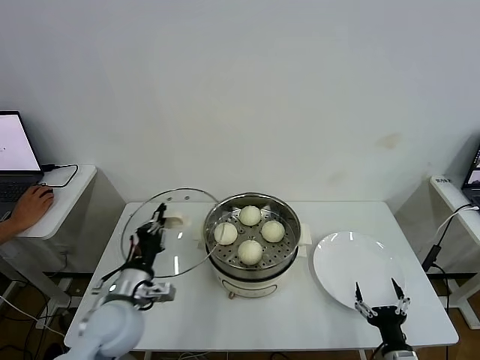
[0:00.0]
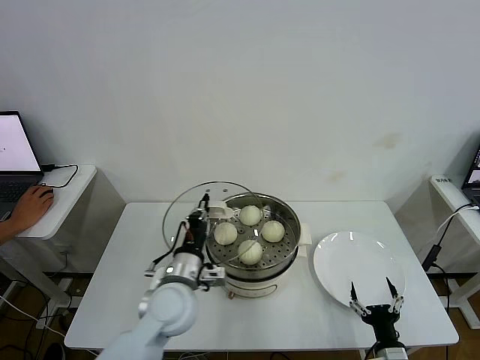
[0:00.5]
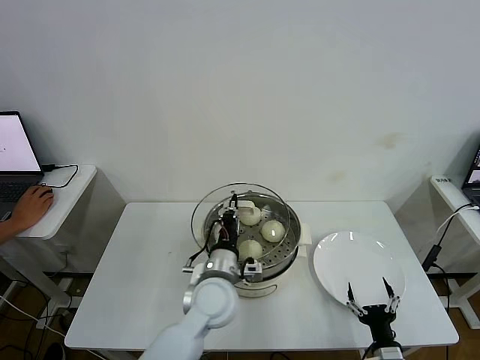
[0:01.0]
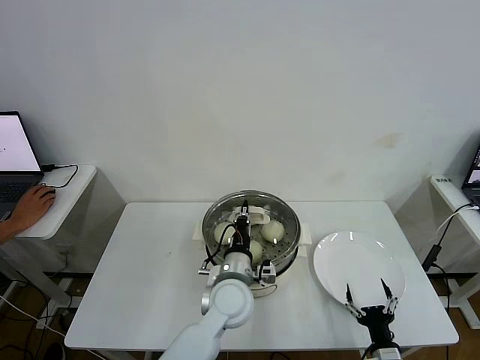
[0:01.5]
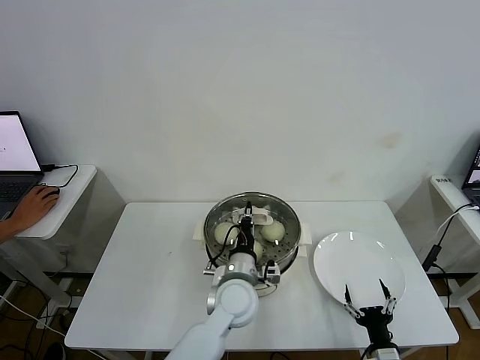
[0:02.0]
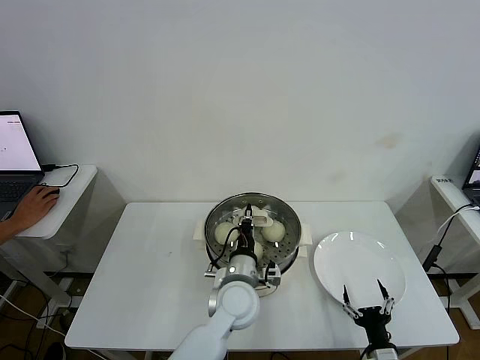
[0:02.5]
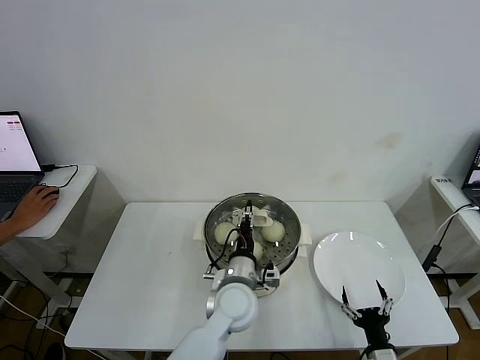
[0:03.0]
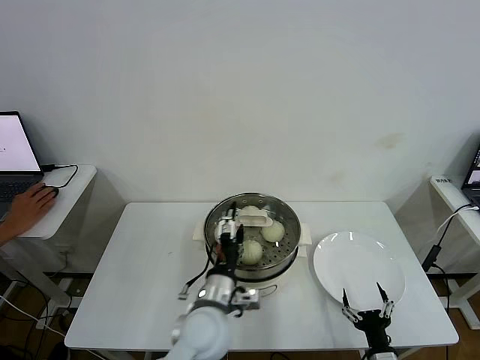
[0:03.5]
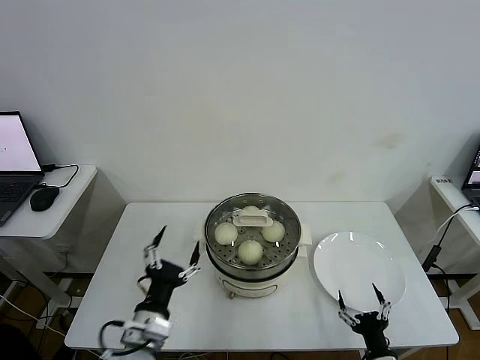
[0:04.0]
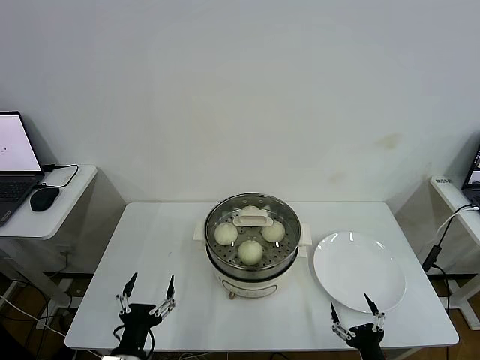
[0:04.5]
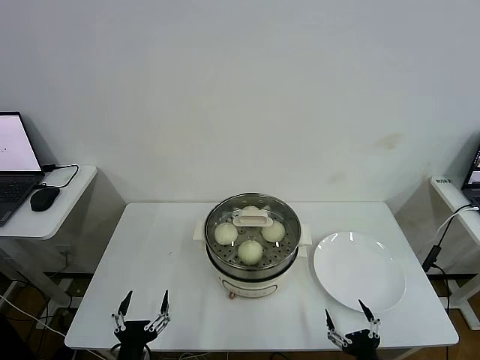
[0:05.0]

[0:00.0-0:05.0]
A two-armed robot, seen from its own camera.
Step, 0.0 to 3.0 s: Place the pot lid on the steamer with left gripper.
0.0 to 2.5 s: The left gripper travels to the right by roughly 25 cm.
2.5 to 5.0 s: The left gripper moves to the left and backward, about 30 cm, and opens its fingers, while the right gripper goes about 5 cm backward.

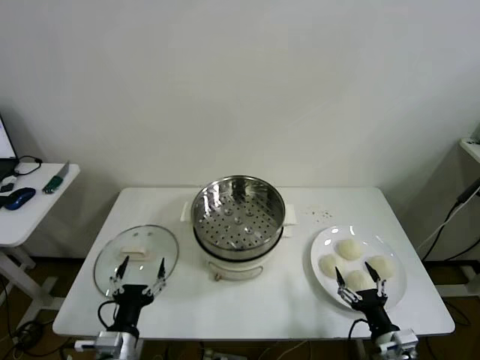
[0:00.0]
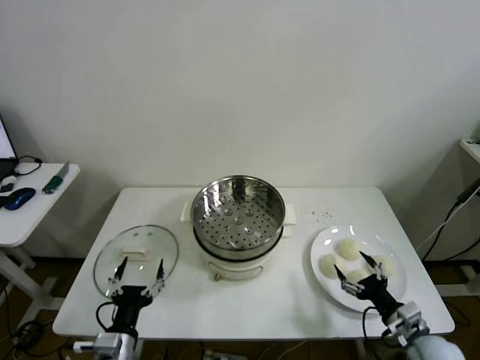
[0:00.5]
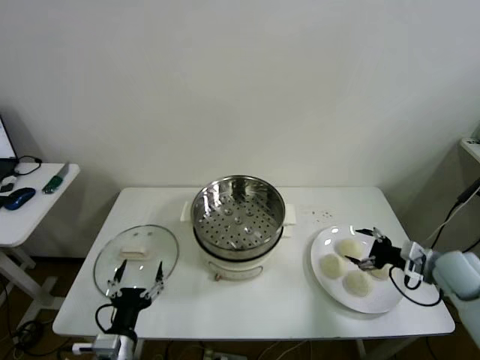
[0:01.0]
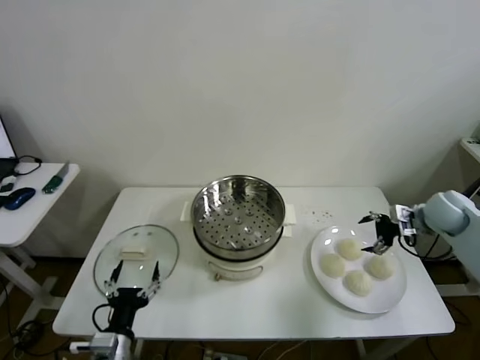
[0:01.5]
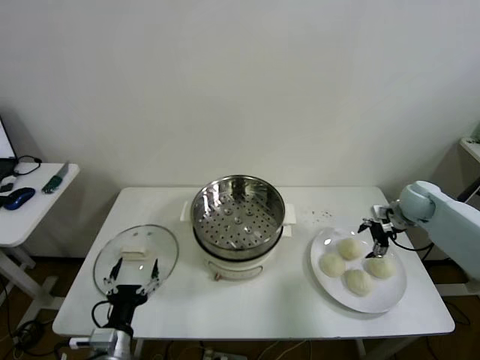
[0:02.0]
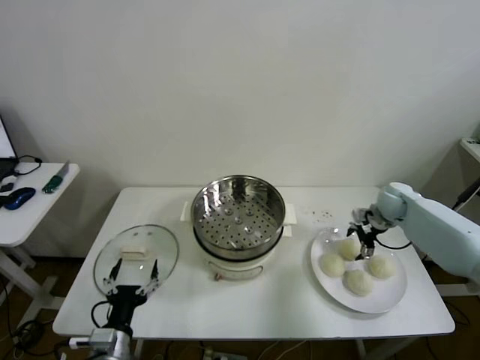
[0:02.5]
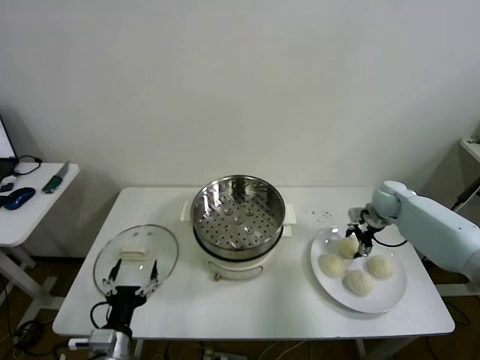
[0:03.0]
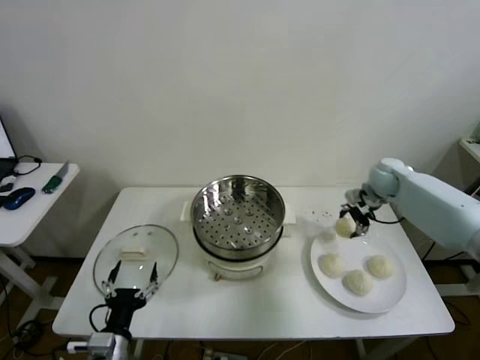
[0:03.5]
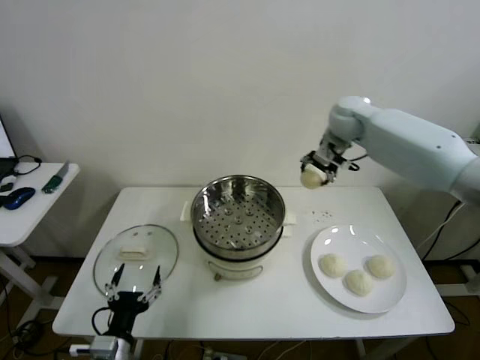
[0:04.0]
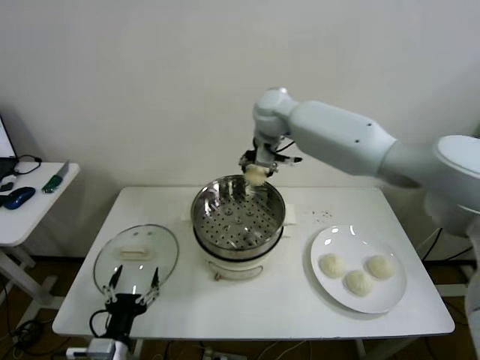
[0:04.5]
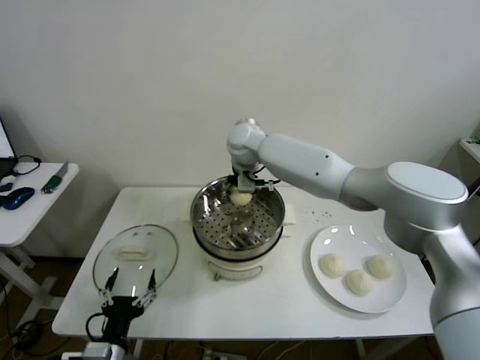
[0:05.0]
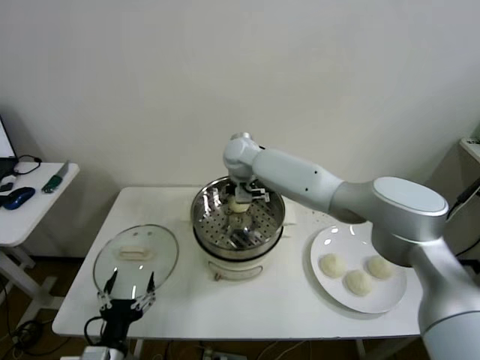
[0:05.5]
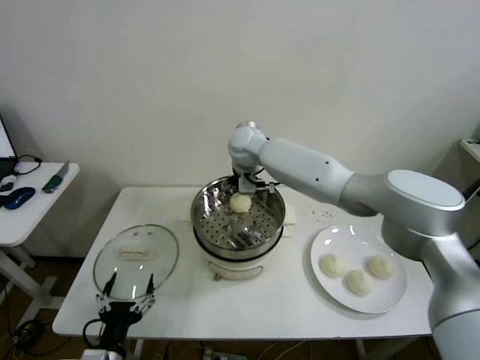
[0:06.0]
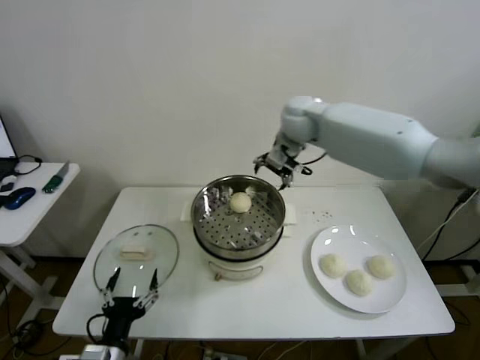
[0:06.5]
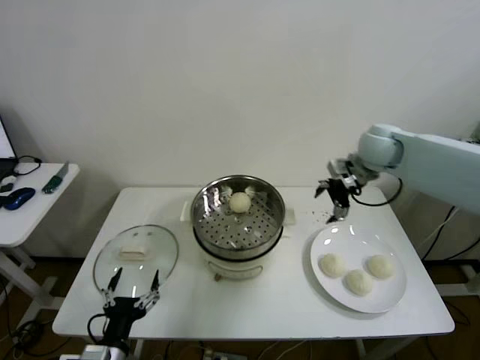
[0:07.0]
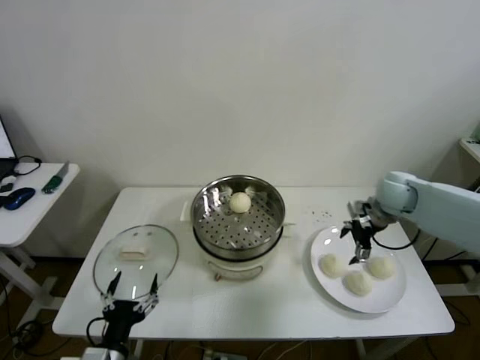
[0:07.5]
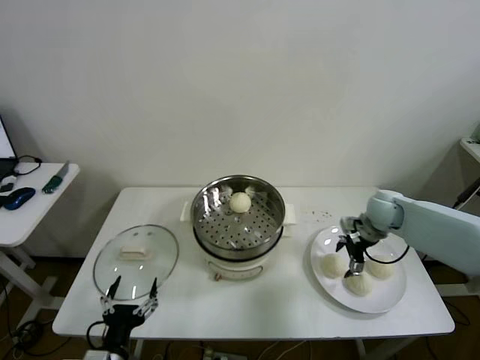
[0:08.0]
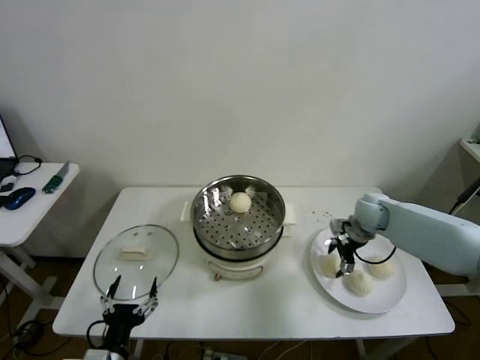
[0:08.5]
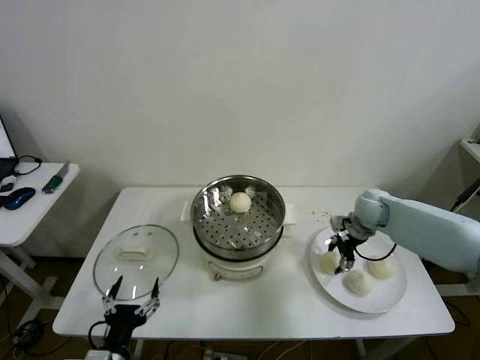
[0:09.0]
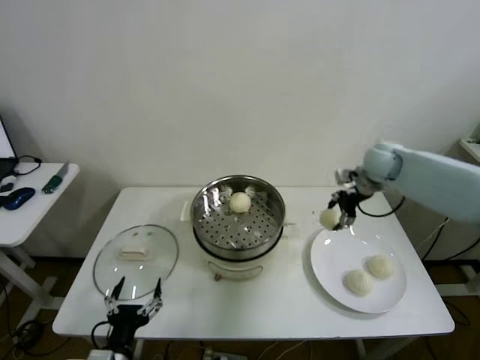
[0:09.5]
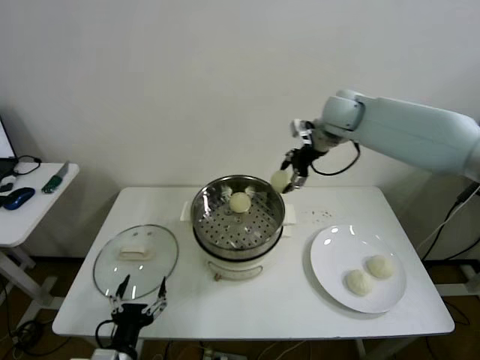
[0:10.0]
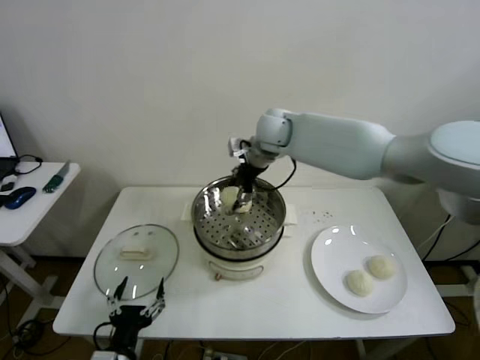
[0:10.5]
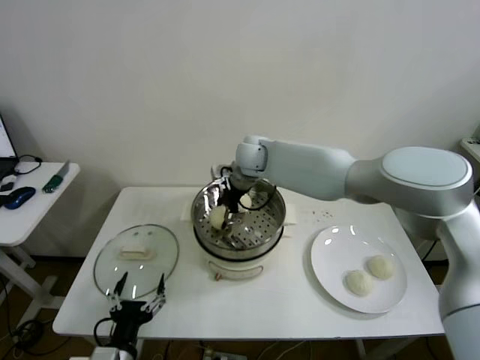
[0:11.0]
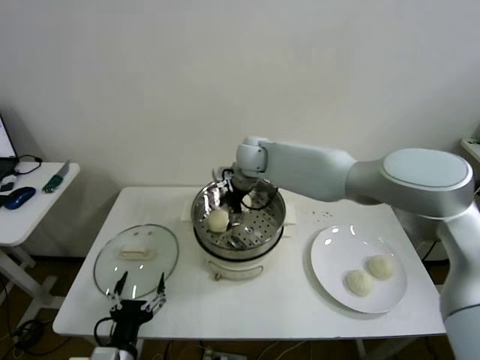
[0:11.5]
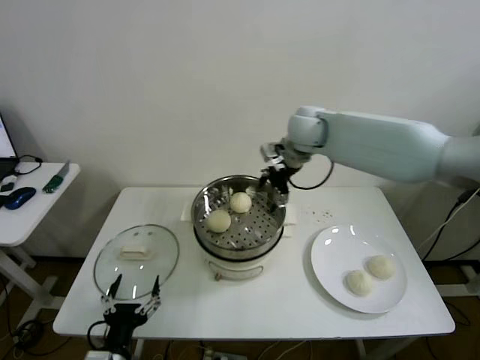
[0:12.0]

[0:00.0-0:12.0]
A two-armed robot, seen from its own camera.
Step, 0.0 to 2.5 s: Grasp the baozi in the plate with right gripper.
Step, 3.0 to 5.0 s: Place the baozi on the steamer with right gripper.
Step, 5.5 to 8.5 s: Grasp the baozi in the plate with right gripper.
Step, 9.0 to 11.0 s: Place the baozi on the steamer with right gripper.
2.0 to 4.0 s: The right gripper goes roughly 30 cm to the left and upward, and closes.
4.0 to 6.0 s: The right gripper travels to the left by some 20 cm, and opens its fingers.
6.0 to 8.0 s: The right gripper is displaced to the right and downward by roughly 35 cm.
8.0 to 10.0 s: The right gripper heads upward and to the left, covering about 30 cm, and closes.
10.0 to 12.0 s: The right gripper reaches roughly 15 cm to the left, then returns, and opens.

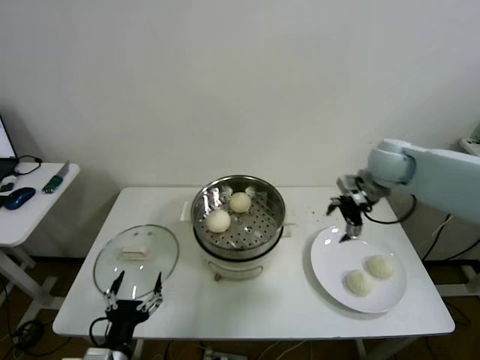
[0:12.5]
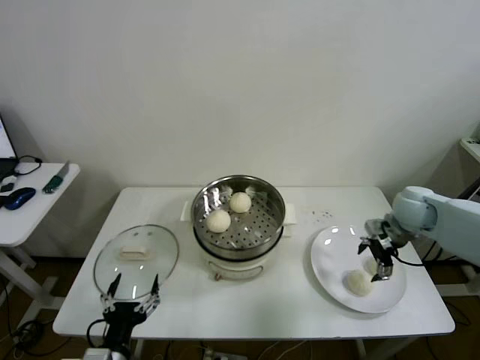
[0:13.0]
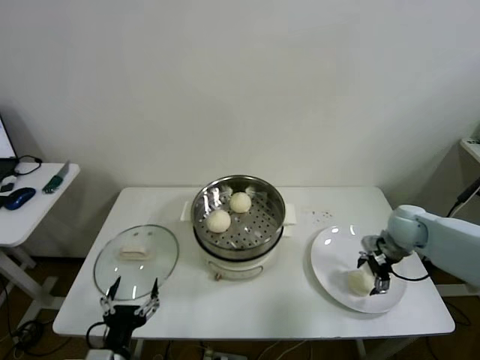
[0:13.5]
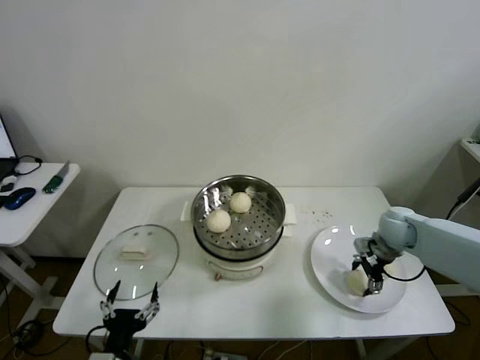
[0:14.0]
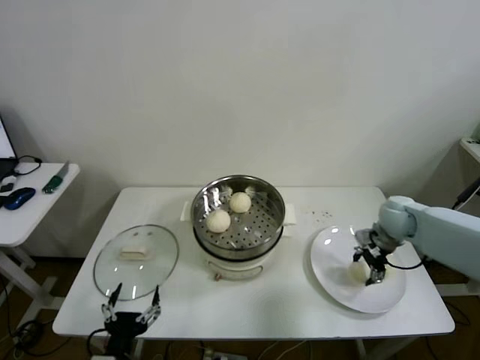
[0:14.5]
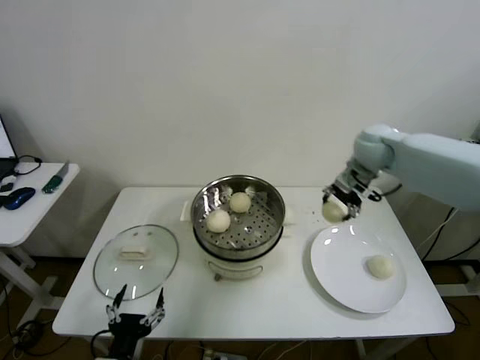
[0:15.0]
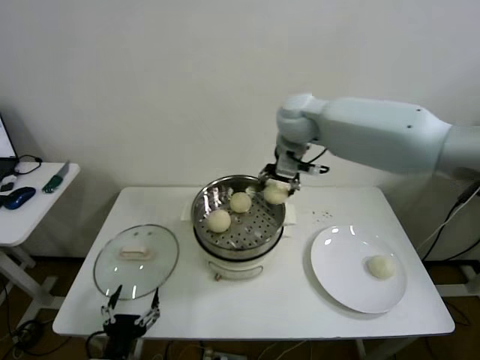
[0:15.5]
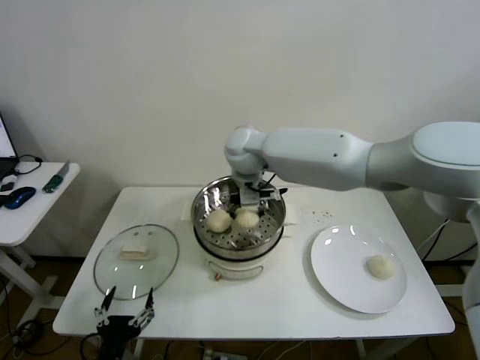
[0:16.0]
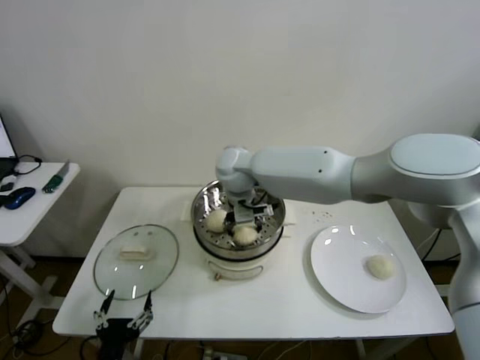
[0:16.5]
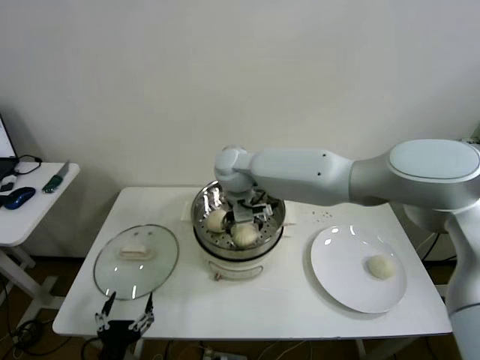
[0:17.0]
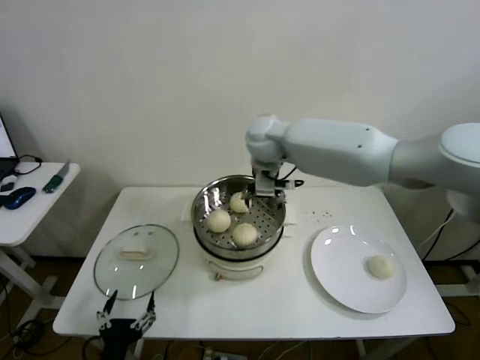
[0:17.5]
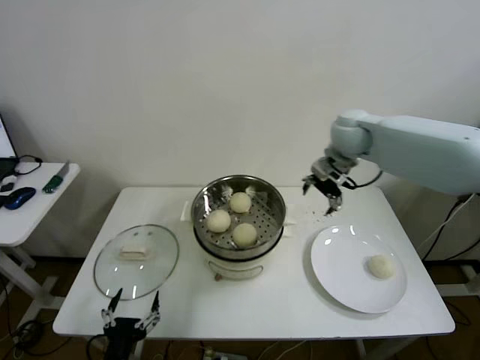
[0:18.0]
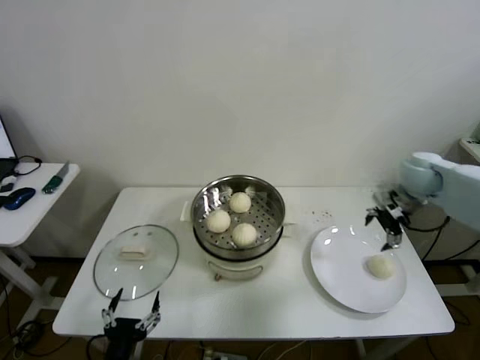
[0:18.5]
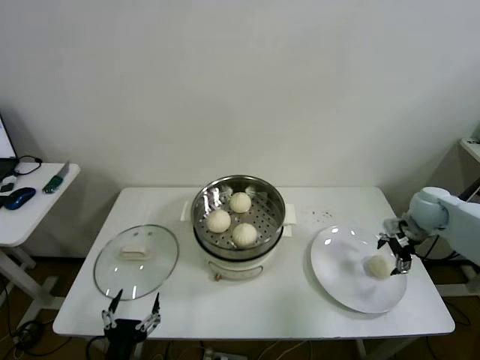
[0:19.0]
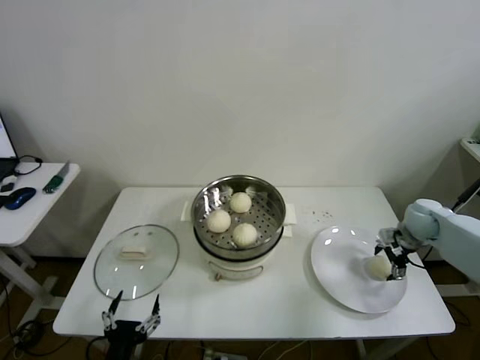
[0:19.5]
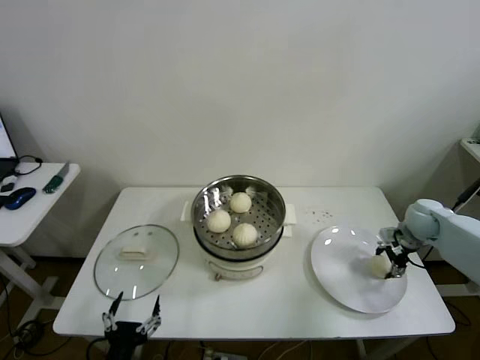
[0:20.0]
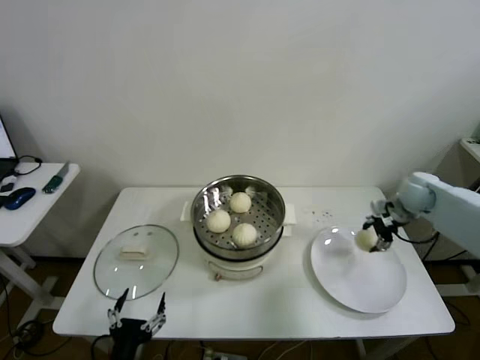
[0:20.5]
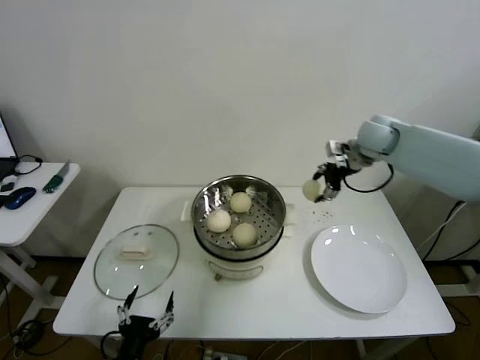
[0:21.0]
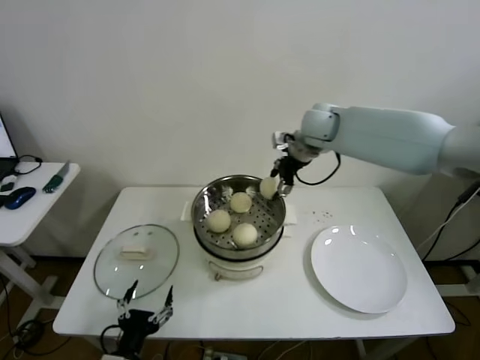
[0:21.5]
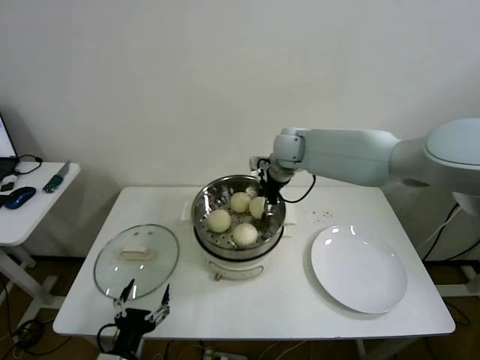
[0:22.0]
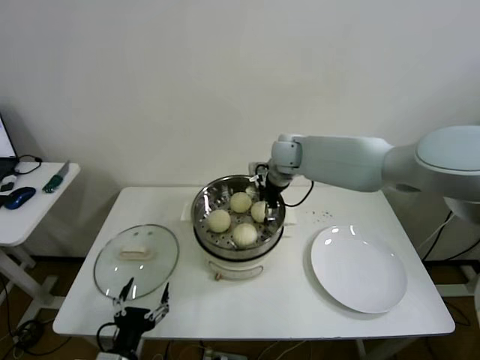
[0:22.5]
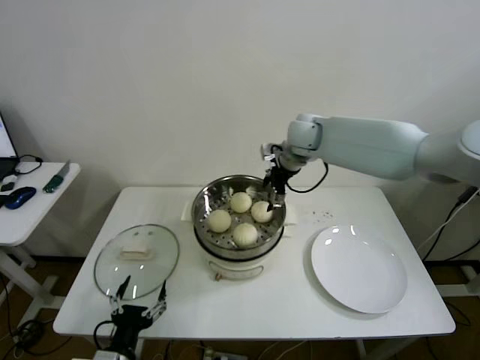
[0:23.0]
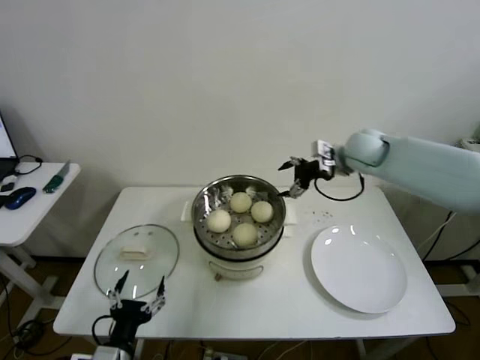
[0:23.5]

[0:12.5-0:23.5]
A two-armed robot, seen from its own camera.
Step, 14.5 to 16.5 s: Place the baozi on the steamer with right gripper.
Step, 17.0 to 19.5 s: Grasp the baozi in the plate with right gripper.
Step, 20.0 to 22.5 s: Place the baozi on the steamer with right gripper.
12.5 to 14.5 s: The right gripper moves downward, roughly 15 cm, and closes up.
14.5 to 16.0 s: The right gripper travels to the left and upward by about 40 cm.
16.0 to 18.0 s: The right gripper goes roughly 25 cm to the right, and opens up.
18.0 to 20.0 s: The right gripper goes some 30 cm downward and to the right, and closes up.
20.0 to 21.5 s: The right gripper heads to the left and upward, covering approximately 35 cm.
21.5 to 23.5 s: The right gripper travels to the right by roughly 10 cm, and opens.
